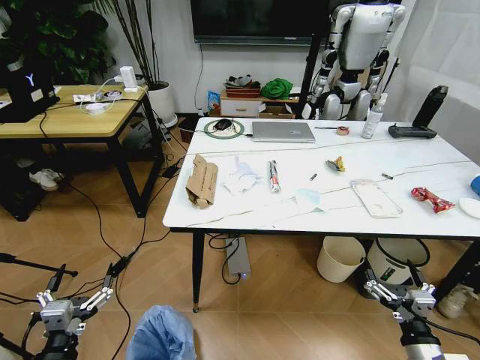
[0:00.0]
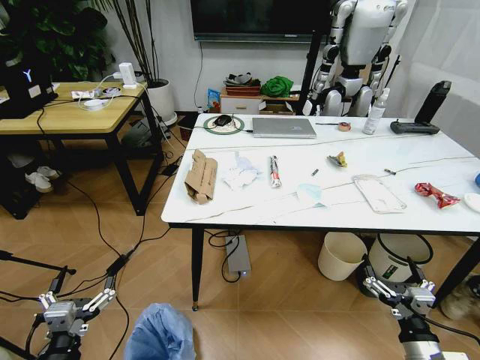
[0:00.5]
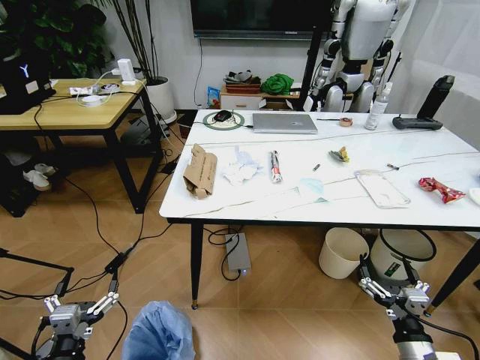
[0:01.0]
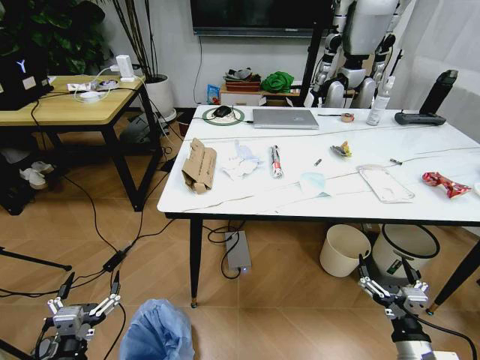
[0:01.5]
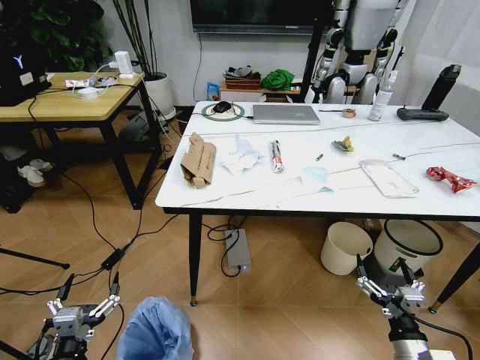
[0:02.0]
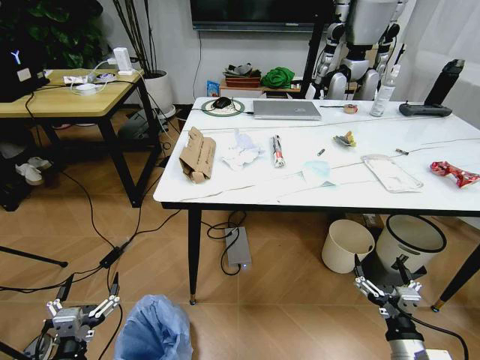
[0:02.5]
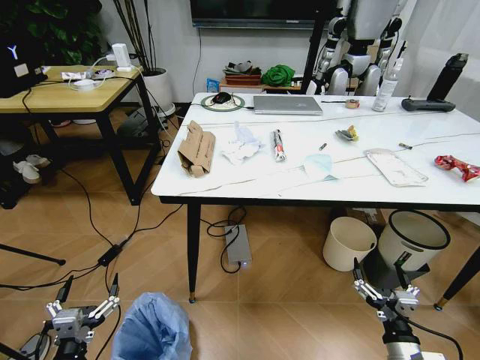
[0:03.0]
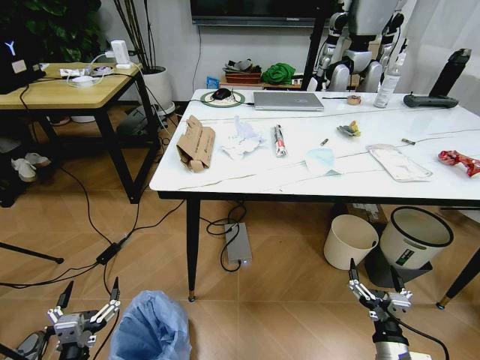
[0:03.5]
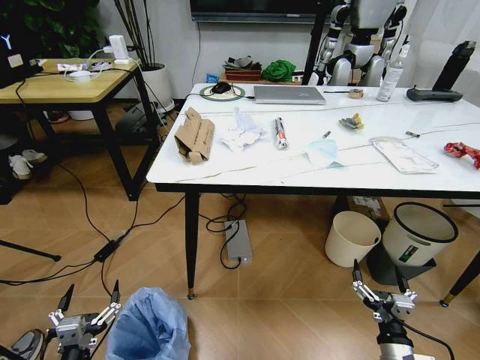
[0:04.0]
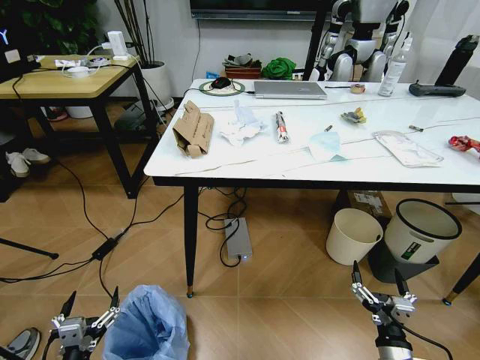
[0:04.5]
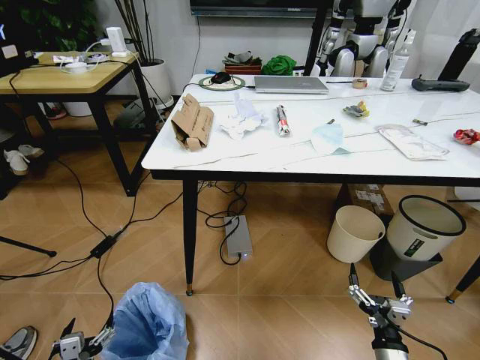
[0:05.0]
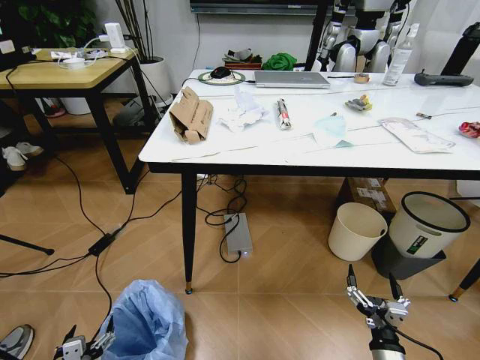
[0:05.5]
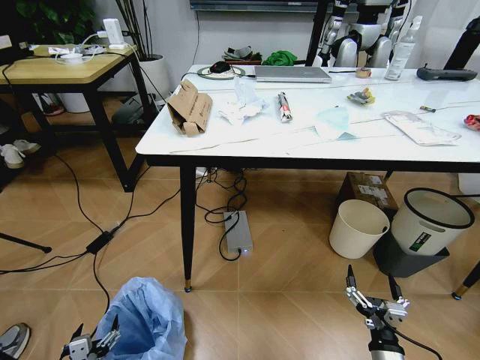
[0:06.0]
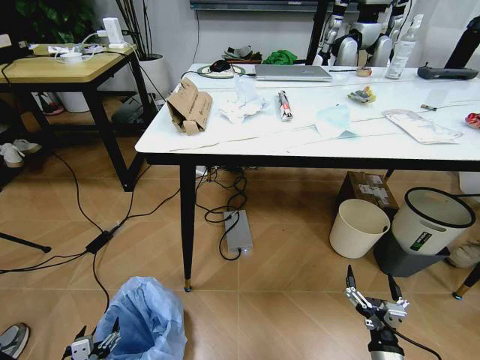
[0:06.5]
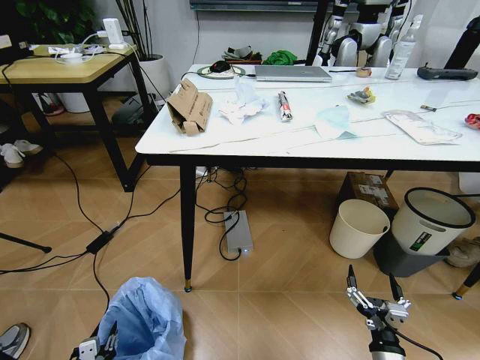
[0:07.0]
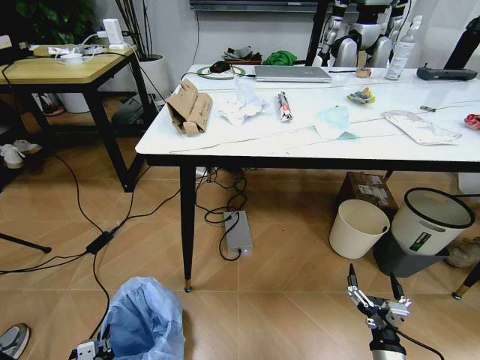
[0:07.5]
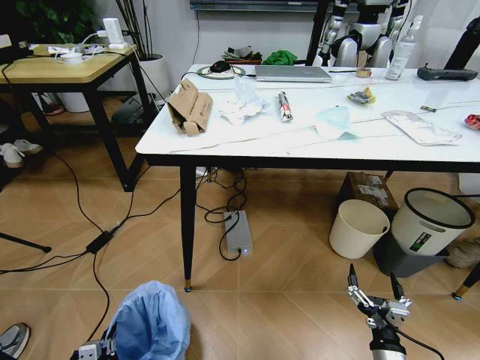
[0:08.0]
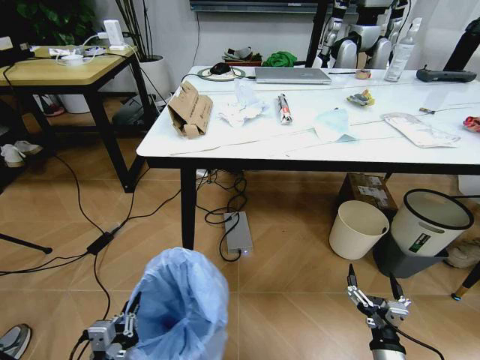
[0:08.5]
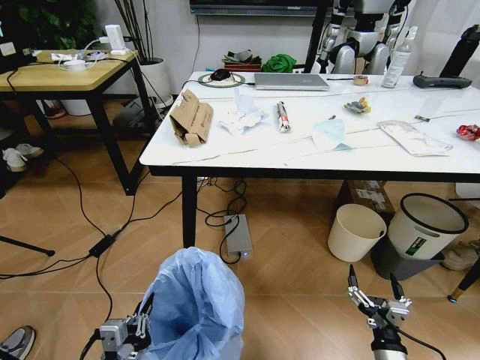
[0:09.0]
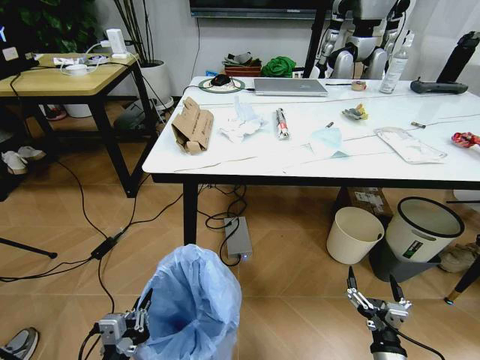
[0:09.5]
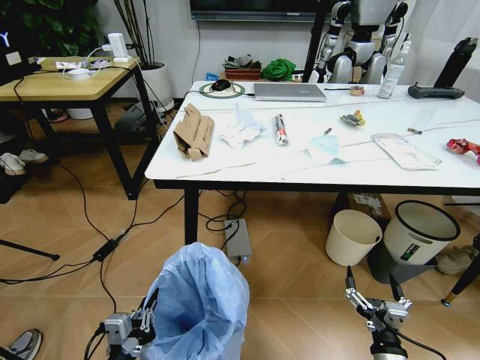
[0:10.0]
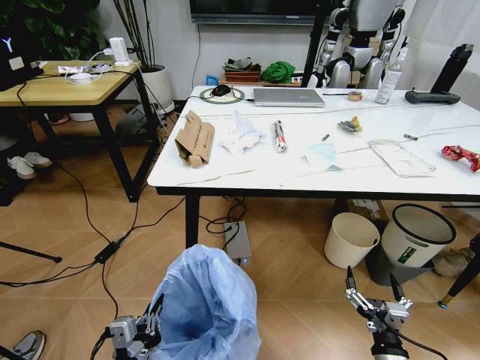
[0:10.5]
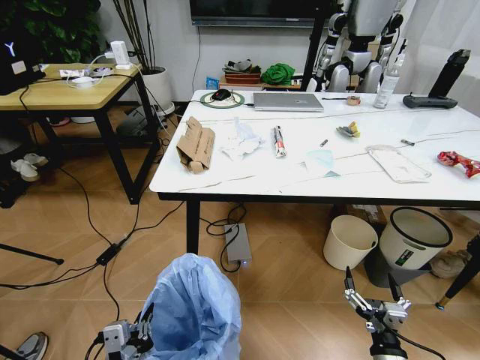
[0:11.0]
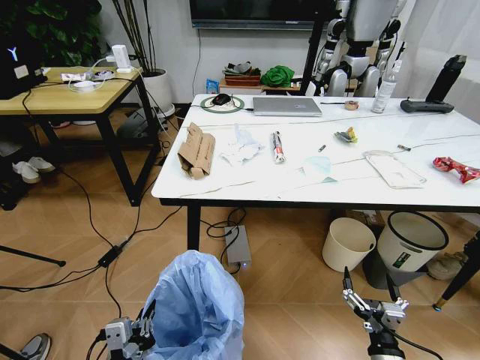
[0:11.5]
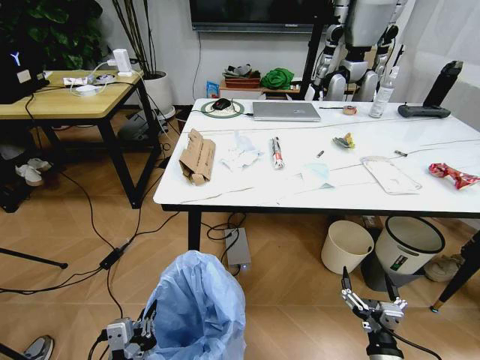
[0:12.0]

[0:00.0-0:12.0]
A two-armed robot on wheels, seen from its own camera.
Task of the whole recording: Pick up the trash bin and place the trash from the table into it.
0:04.0 to 0:06.0: The left gripper is displaced downward by roughly 10 cm.
0:06.0 to 0:08.0: The left gripper closes its fingers.
0:08.0 to 0:10.0: The left gripper moves upward and to the right, about 15 cm.

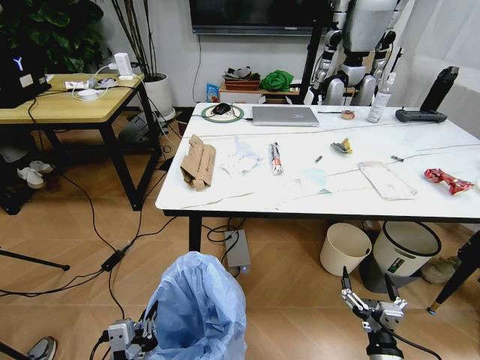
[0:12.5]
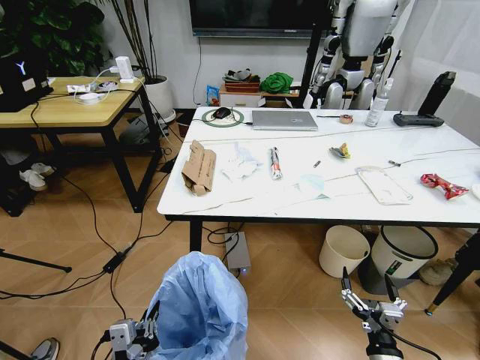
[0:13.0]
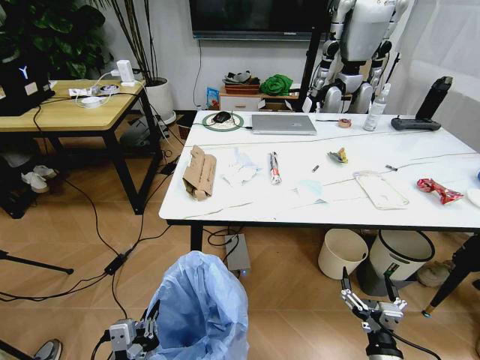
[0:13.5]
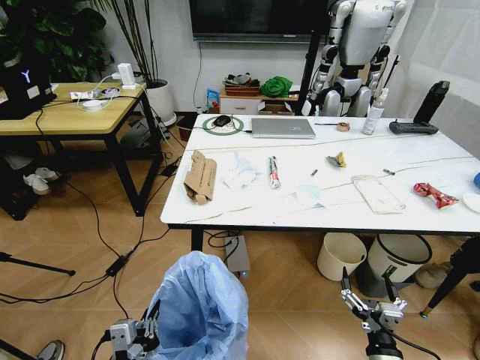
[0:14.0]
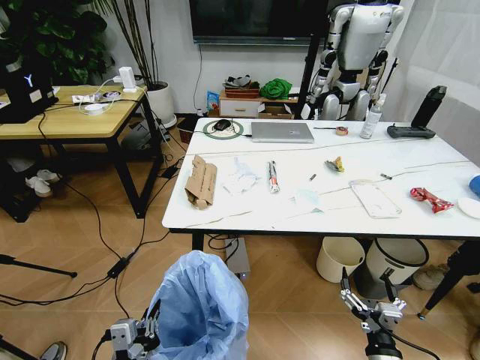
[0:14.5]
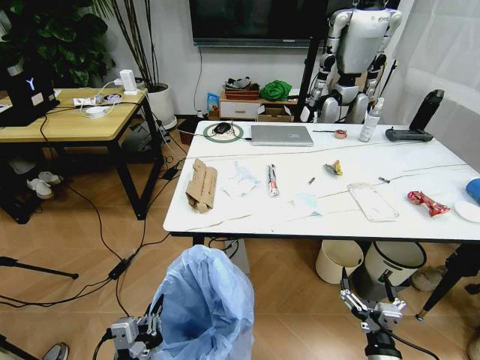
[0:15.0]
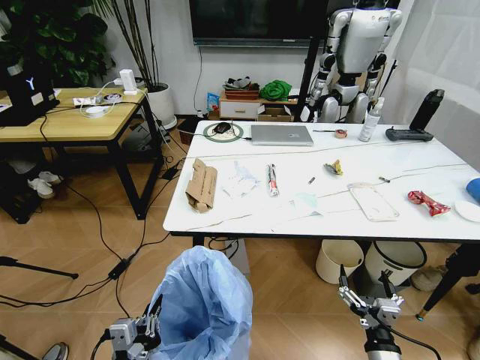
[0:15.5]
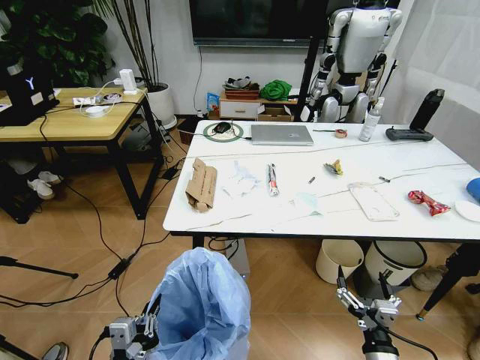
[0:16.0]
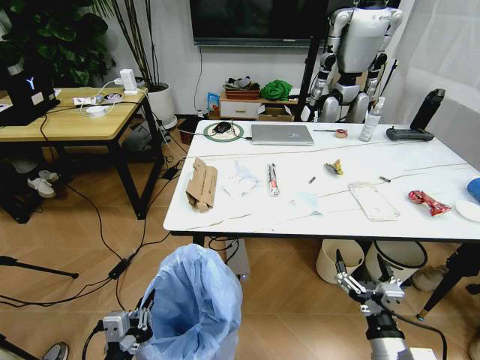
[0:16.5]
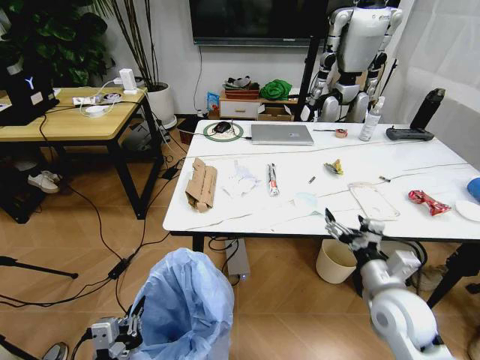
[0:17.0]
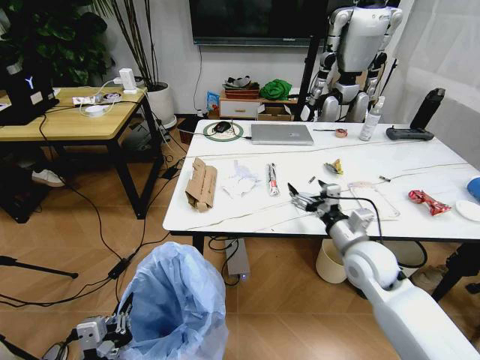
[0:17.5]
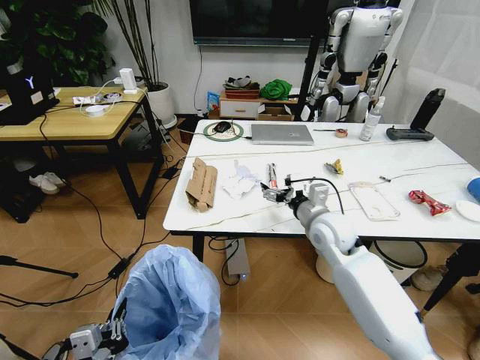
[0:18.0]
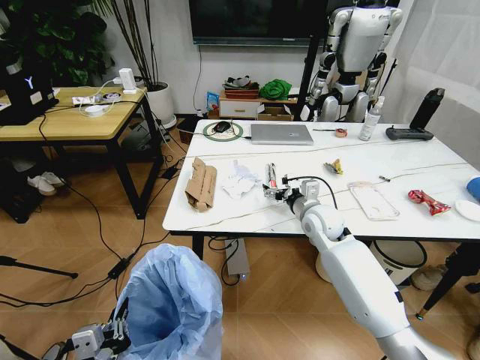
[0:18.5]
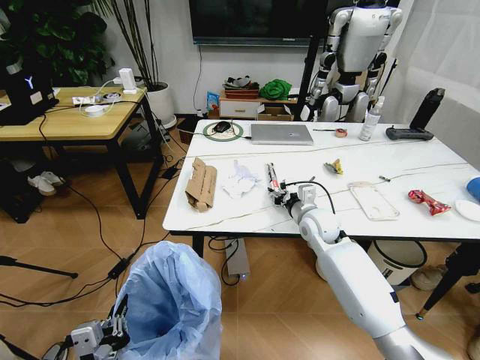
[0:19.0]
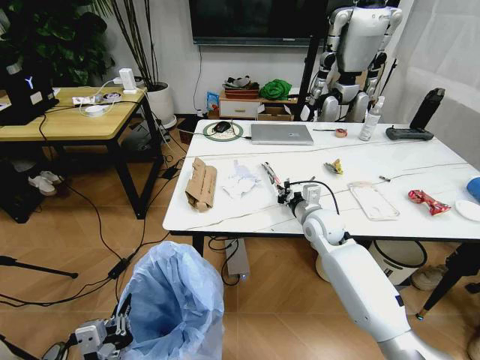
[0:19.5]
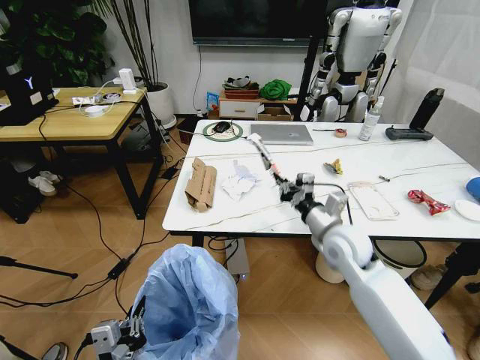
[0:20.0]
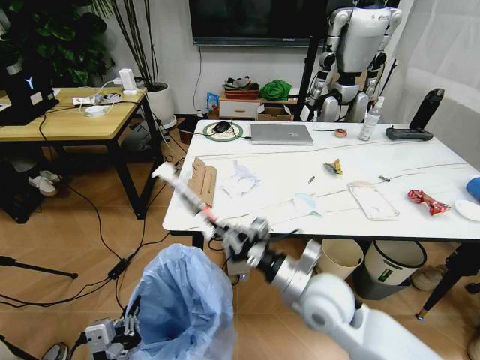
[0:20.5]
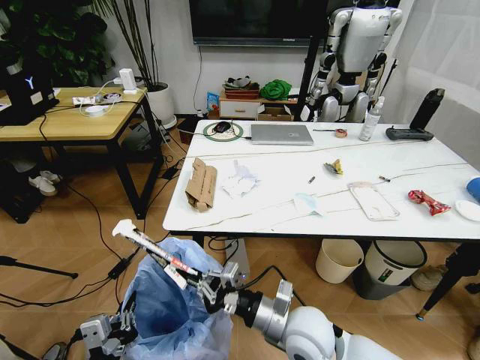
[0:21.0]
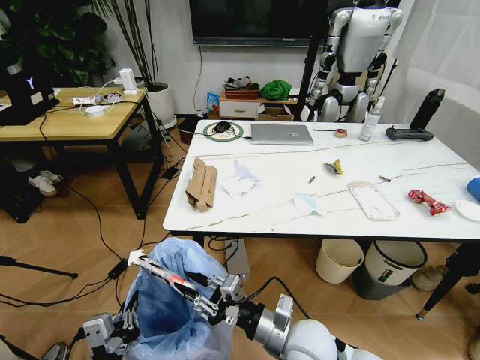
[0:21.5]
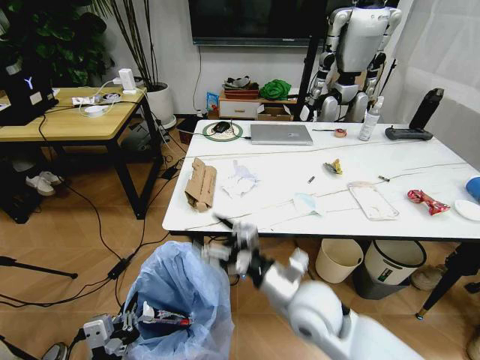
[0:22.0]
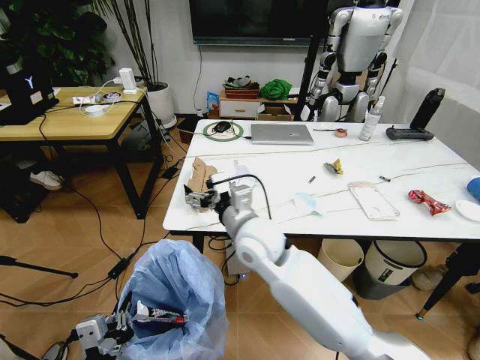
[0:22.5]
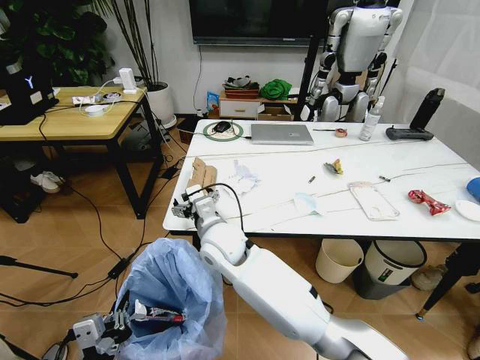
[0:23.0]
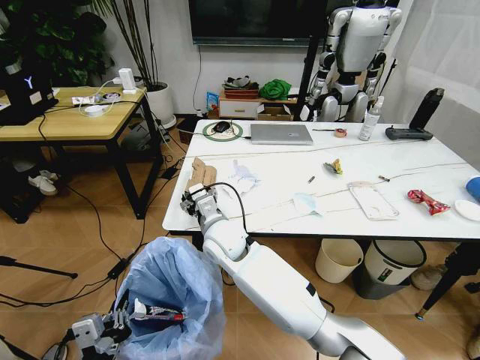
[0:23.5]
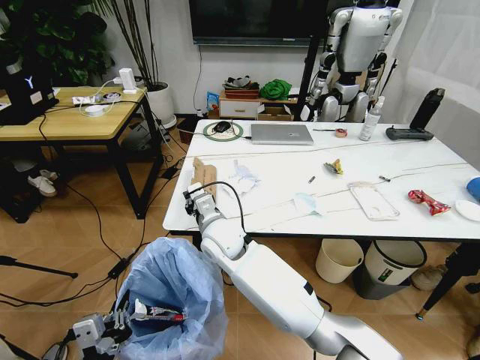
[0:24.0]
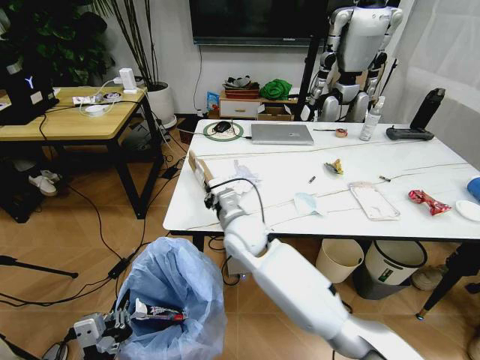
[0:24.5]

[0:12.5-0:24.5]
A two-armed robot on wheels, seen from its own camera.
Task of the whole recording: Pick up the trash bin and place the trash from the table into it.
0:14.5 to 0:16.5: The right gripper travels upward by some 5 cm.
0:16.5 to 0:18.5: The right gripper travels forward by approximately 35 cm.
0:18.5 to 0:20.5: The right gripper is displaced backward by about 20 cm, and closes its fingers.
0:20.5 to 0:22.5: The right gripper travels to the left, forward and upward by about 15 cm, and opens its fingers.
0:22.5 to 0:24.5: The right gripper moves roughly 5 cm, and closes up.

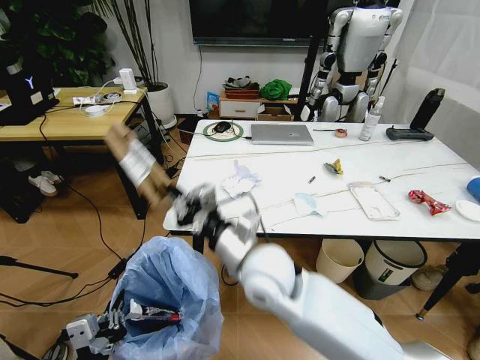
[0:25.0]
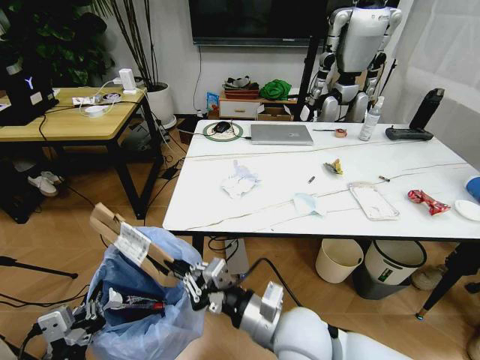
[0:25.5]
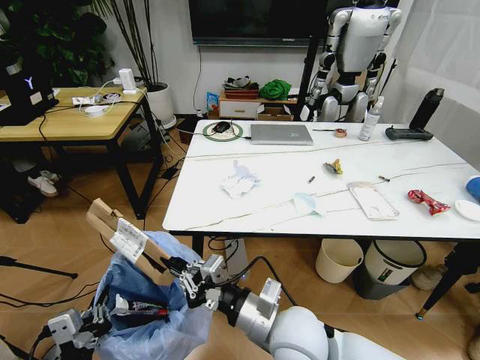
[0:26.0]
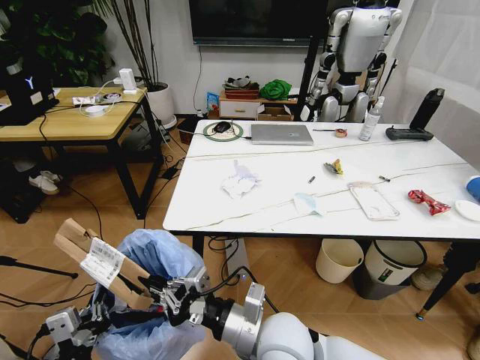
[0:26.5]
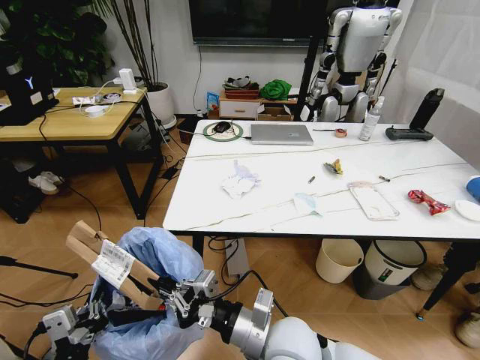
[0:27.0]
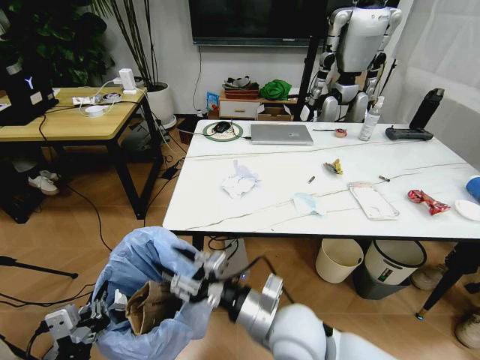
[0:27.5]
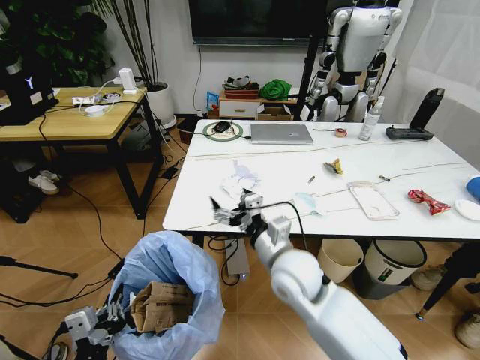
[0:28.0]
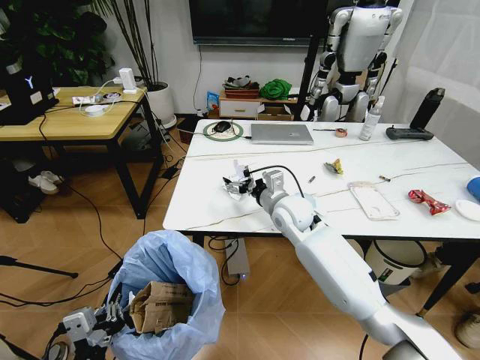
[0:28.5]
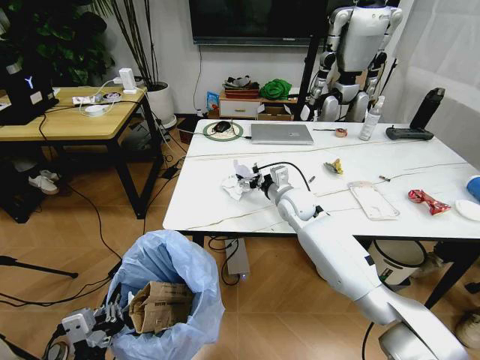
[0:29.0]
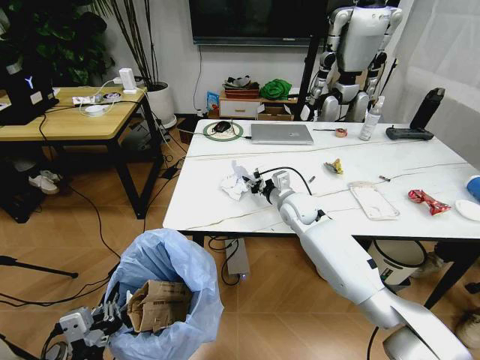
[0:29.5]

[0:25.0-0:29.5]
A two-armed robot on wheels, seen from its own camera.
Task of the whole recording: Pick up the trash bin and place the trash from the table into it.
0:25.0 to 0:27.0: The right gripper is displaced backward and downward by some 10 cm.
0:27.0 to 0:29.5: The right gripper heads forward, covering roughly 30 cm, and opens its fingers.
